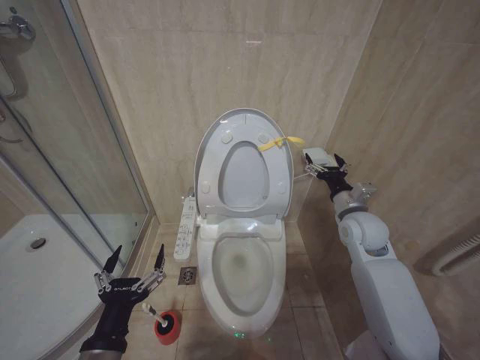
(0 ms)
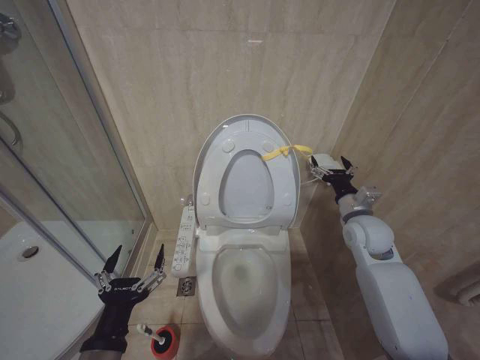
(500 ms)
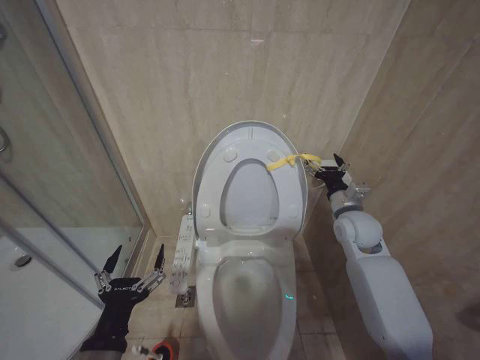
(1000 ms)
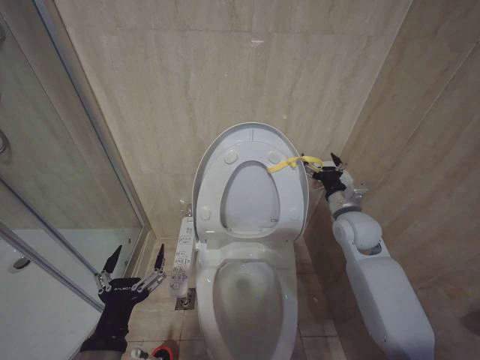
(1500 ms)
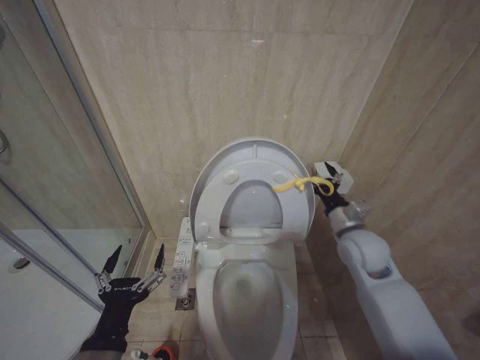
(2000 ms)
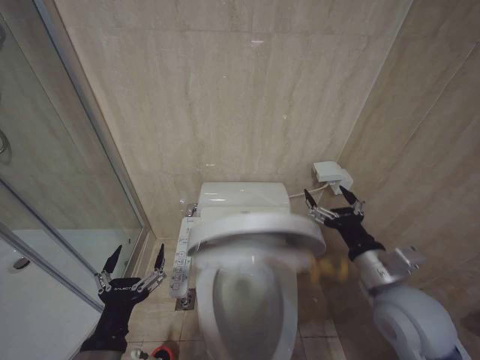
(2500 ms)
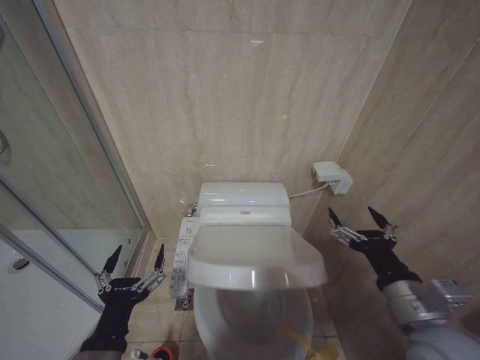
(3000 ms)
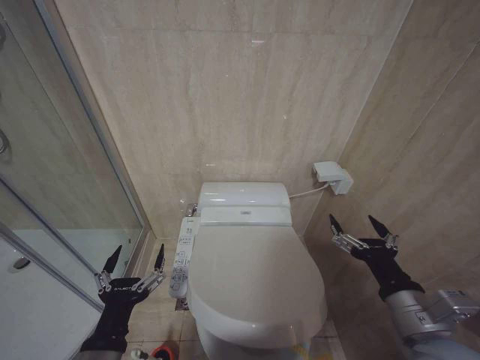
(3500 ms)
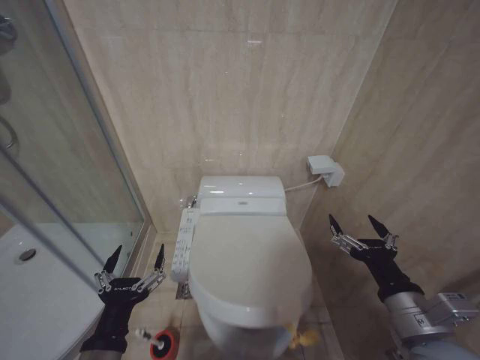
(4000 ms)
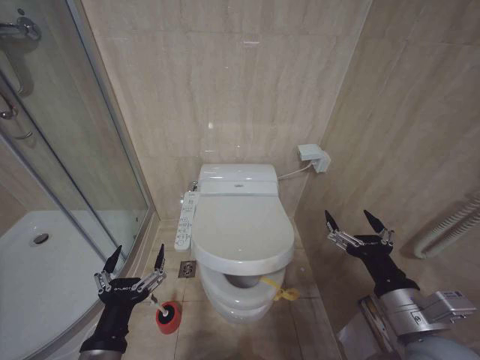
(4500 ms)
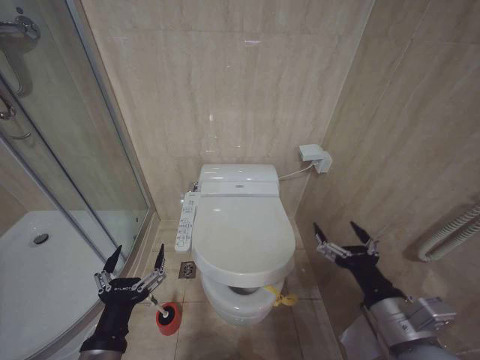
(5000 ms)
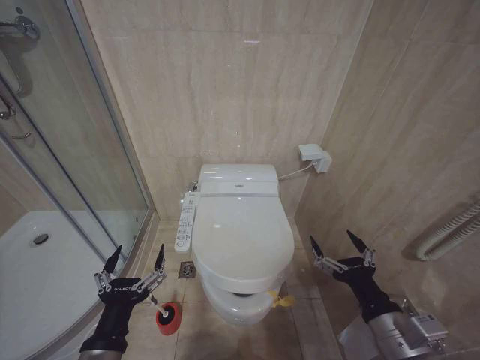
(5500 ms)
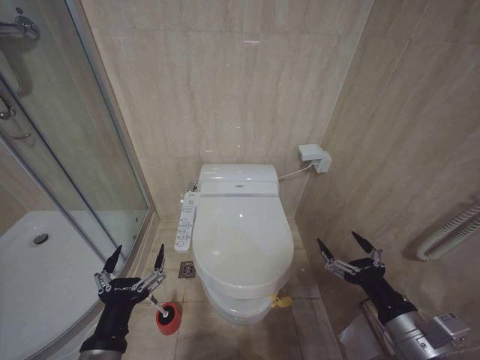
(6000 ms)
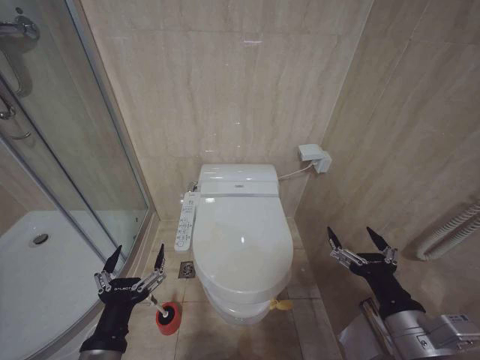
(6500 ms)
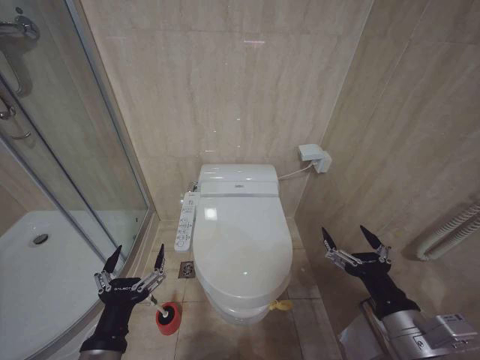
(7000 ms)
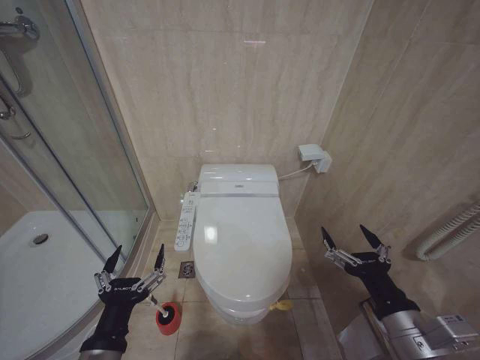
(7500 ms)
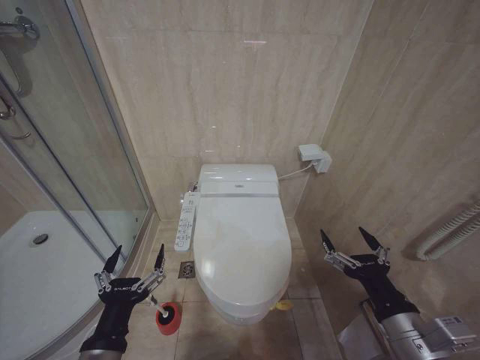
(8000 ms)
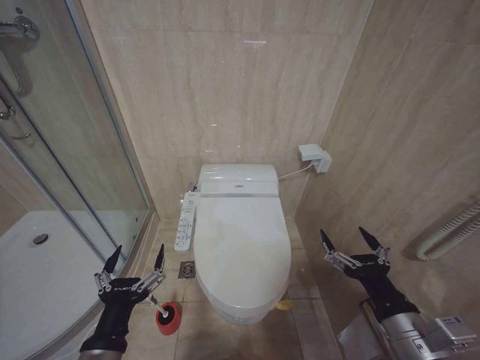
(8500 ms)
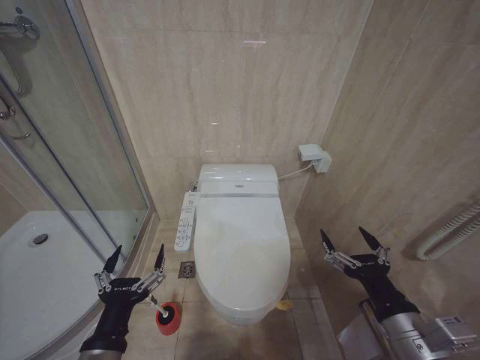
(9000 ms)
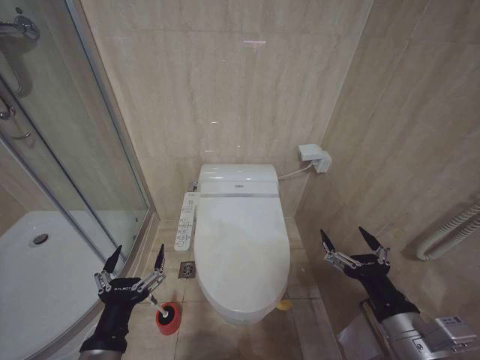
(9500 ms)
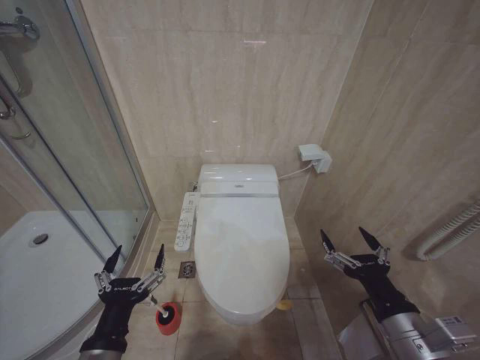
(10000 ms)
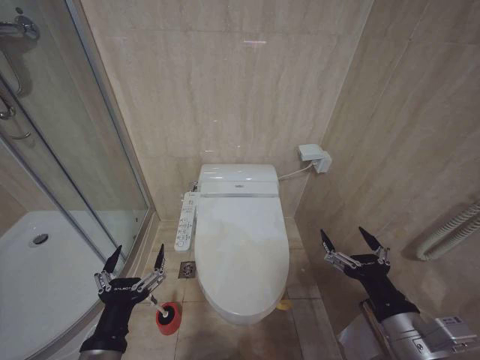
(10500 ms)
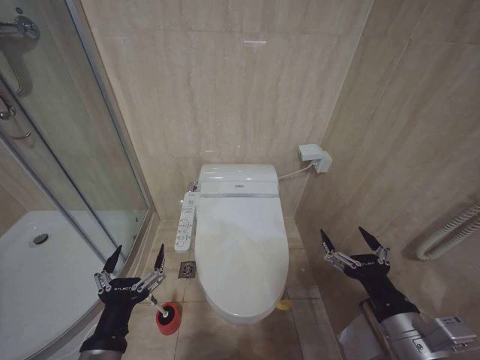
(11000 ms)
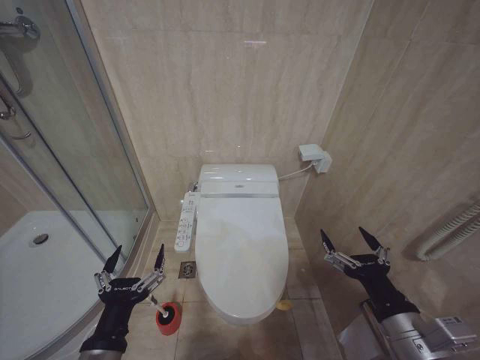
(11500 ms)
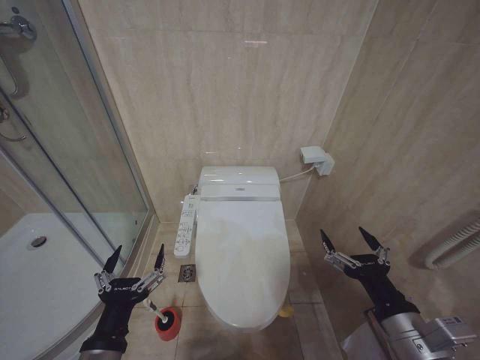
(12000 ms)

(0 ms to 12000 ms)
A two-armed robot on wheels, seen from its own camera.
Task of the whole recording: Open the toilet lid, clean the toilet bowl with a toilet brush, close the toilet lid, and flush.
0 ms - 2000 ms: There are only small adjustments of the grippers.
2000 ms - 4000 ms: The right gripper moves backward, some 20 cm.
4000 ms - 6000 ms: The right gripper ends up roughly 5 cm from where it was.
6000 ms - 8000 ms: The grippers move only a little.
8000 ms - 12000 ms: The two grippers keep their place.

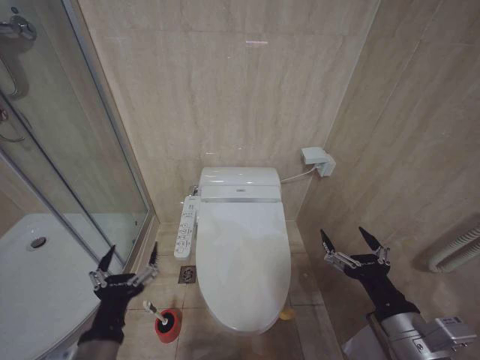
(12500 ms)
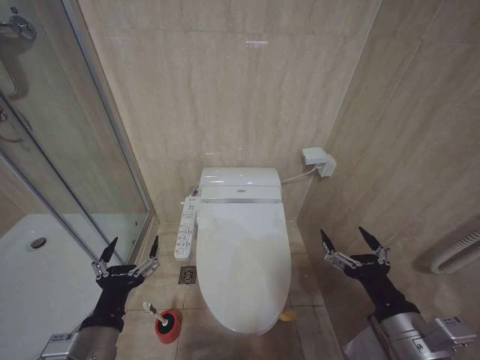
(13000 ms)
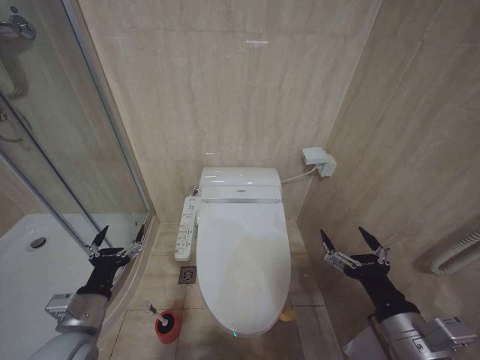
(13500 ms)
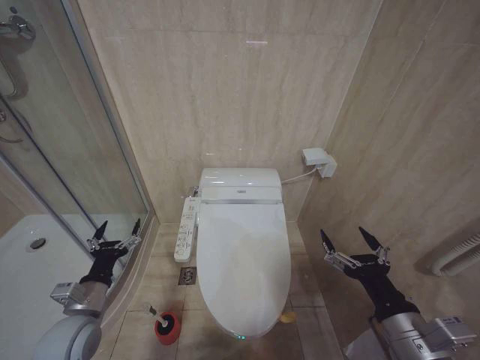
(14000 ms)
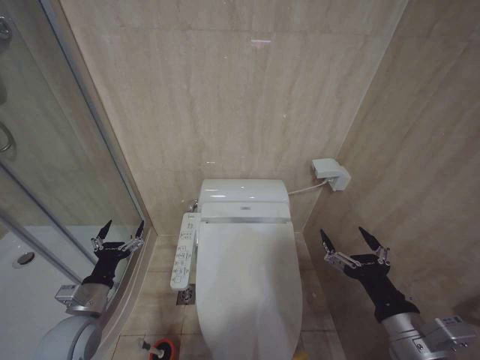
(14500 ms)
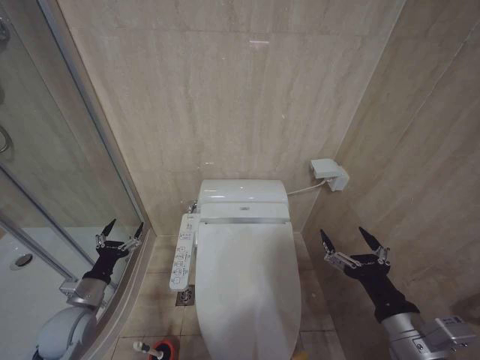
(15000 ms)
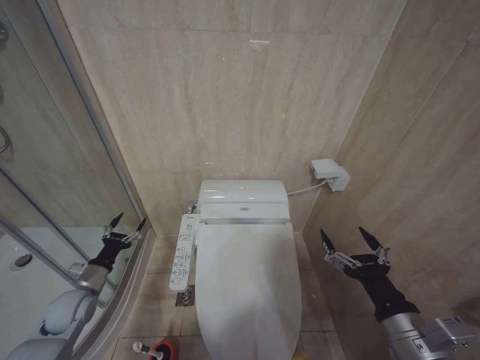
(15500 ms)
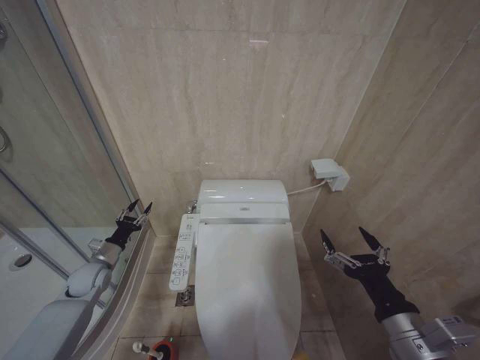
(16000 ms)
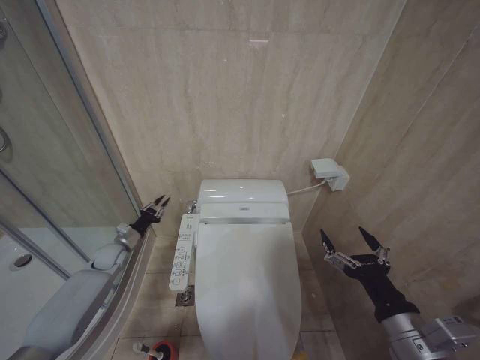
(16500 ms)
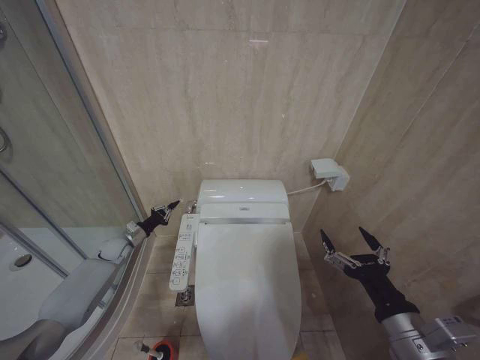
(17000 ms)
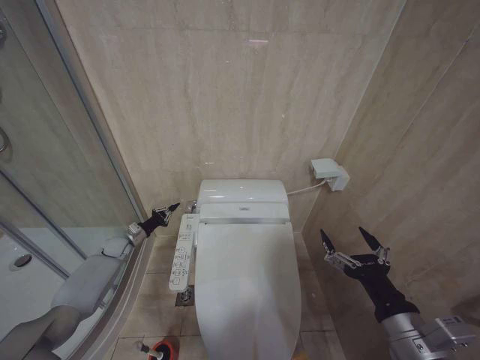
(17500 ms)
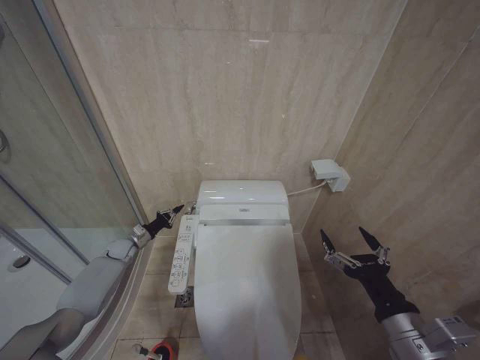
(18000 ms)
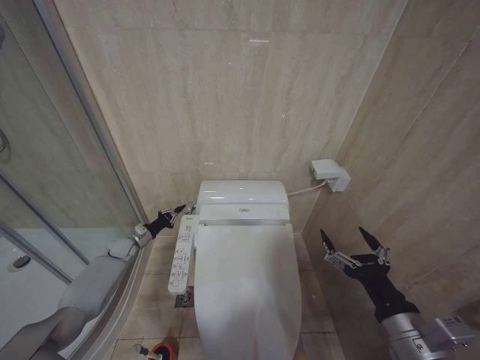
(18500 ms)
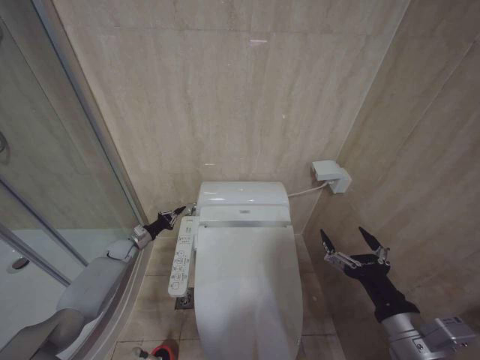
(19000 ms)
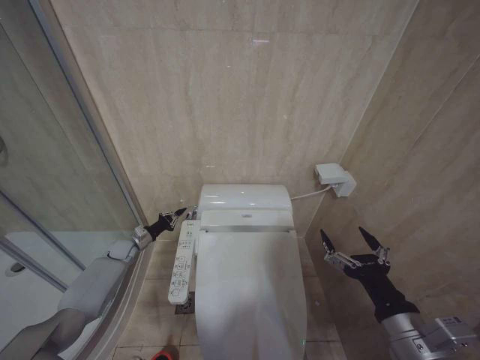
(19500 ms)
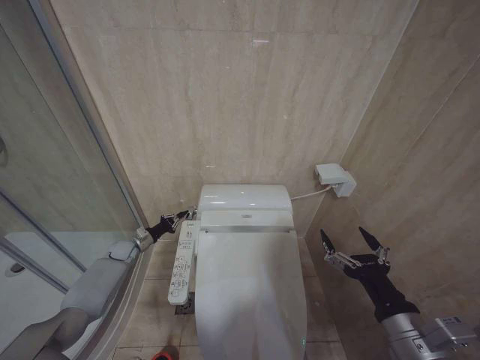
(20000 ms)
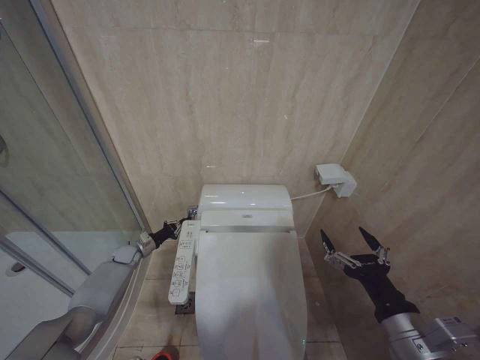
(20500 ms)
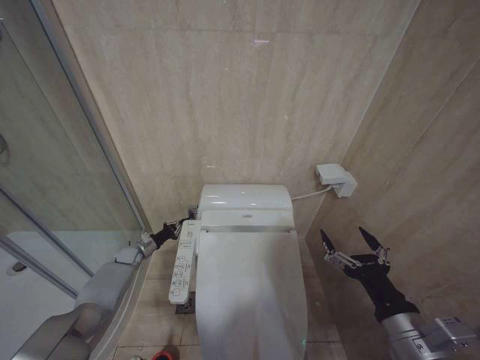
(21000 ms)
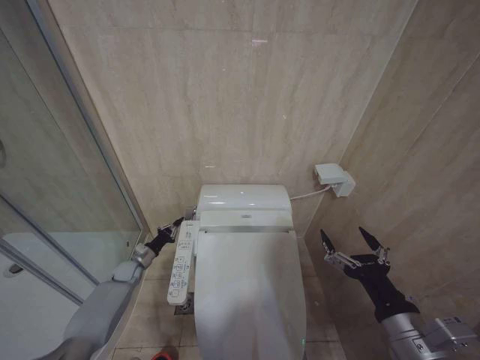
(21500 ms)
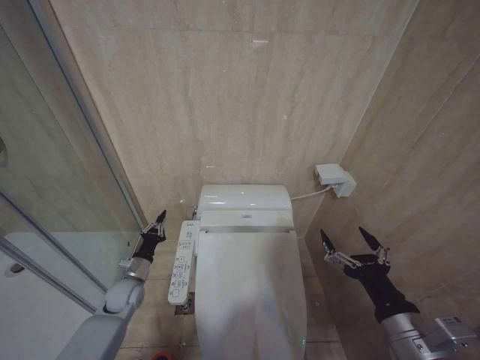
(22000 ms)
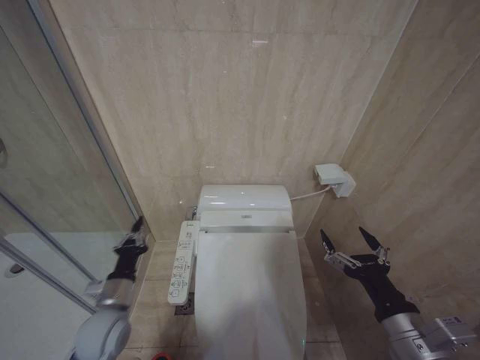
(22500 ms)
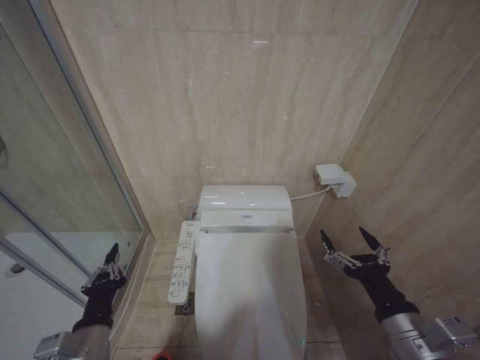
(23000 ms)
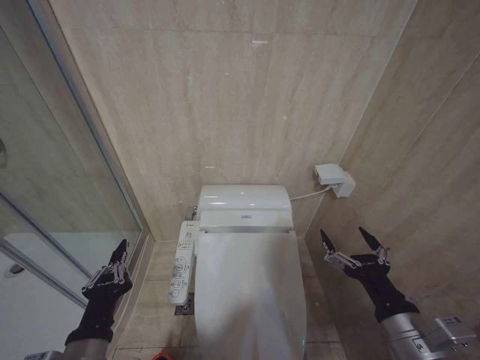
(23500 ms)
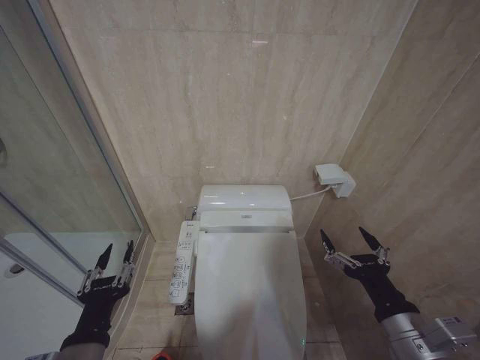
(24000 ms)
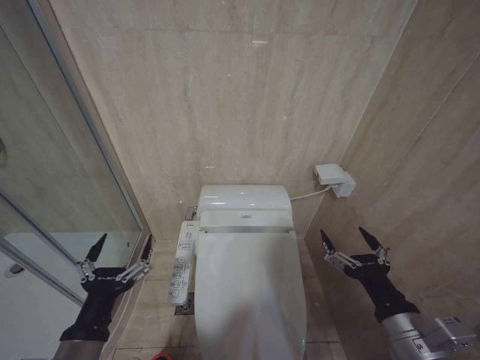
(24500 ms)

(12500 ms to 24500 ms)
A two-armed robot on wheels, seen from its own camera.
Task of the whole recording: Open the toilet lid, clean the toilet bowl with a toilet brush, close the toilet lid, and flush.
12500 ms - 14500 ms: The left gripper is displaced forward, to the left and downward by approximately 20 cm.
14500 ms - 16500 ms: The left gripper is displaced forward by roughly 20 cm, and closes its fingers.
16500 ms - 18500 ms: The left gripper shifts some 5 cm forward, and closes up.
18500 ms - 20500 ms: There are only small adjustments of the grippers.
20500 ms - 22500 ms: The left gripper is displaced backward, upward and to the right by about 30 cm.
22500 ms - 24500 ms: The left gripper travels backward and upward by roughly 20 cm, and opens its fingers.

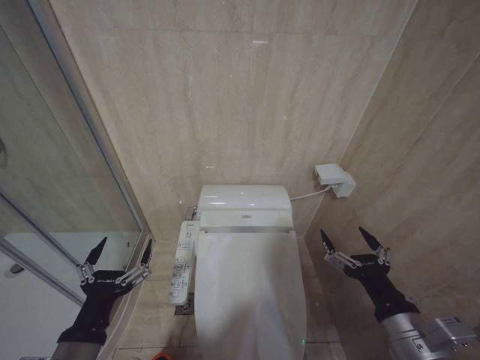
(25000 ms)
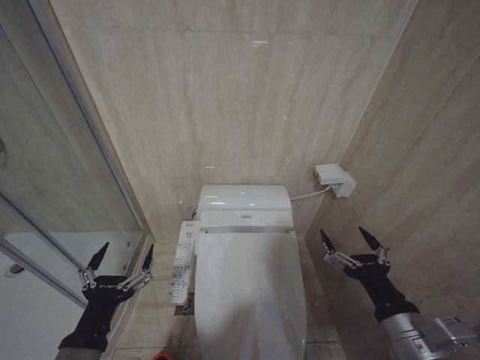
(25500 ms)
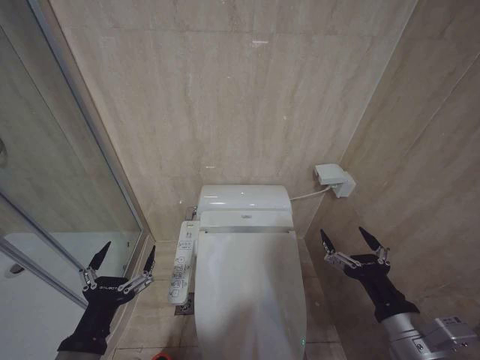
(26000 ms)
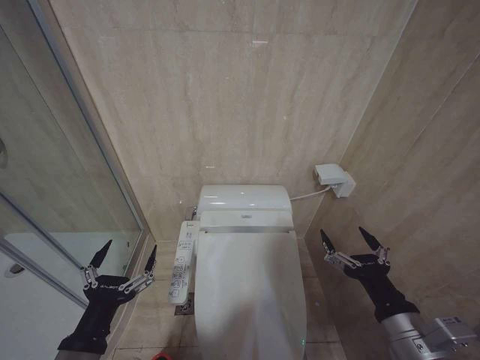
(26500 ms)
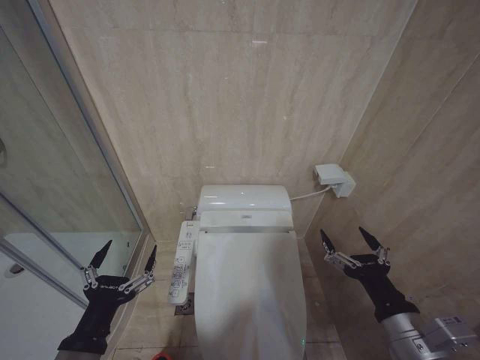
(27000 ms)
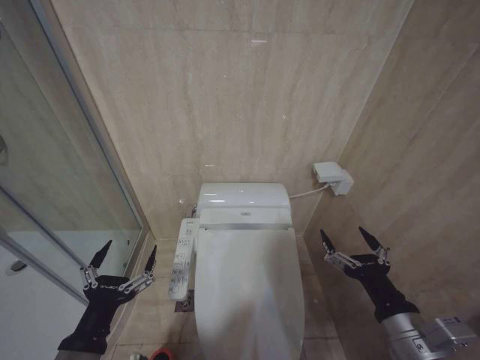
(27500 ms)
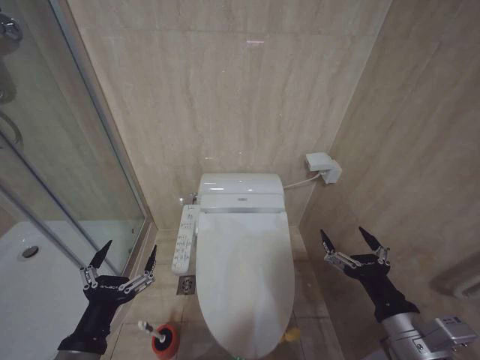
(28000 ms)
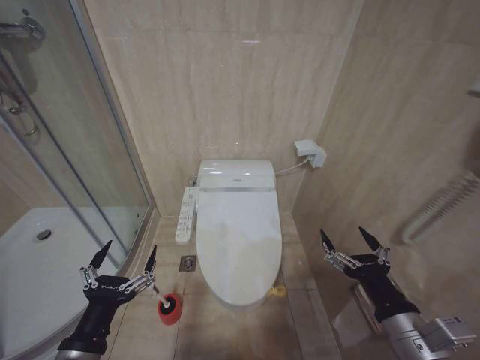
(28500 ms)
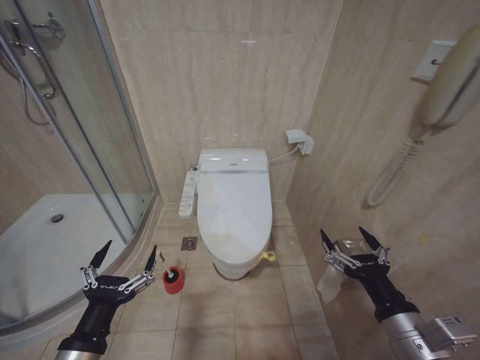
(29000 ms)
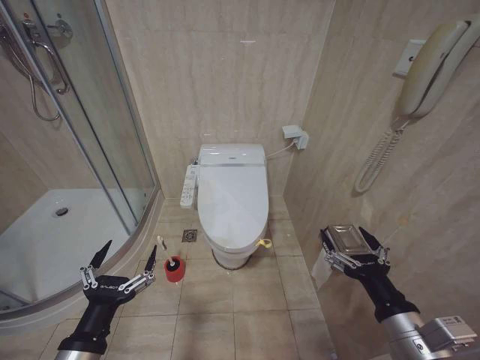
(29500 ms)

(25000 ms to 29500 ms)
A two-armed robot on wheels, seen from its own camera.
Task of the whole recording: Open the toilet lid, clean the toilet bowl with a toilet brush, close the toilet lid, and flush.
25000 ms - 27000 ms: Both grippers stay put.
